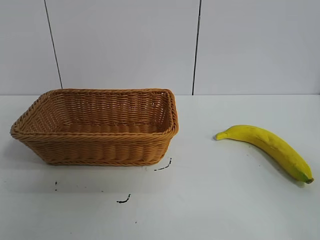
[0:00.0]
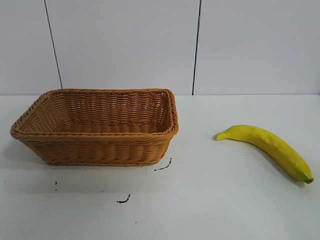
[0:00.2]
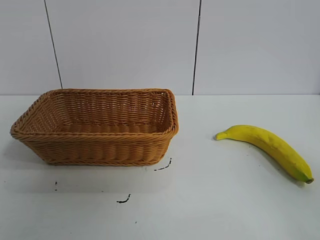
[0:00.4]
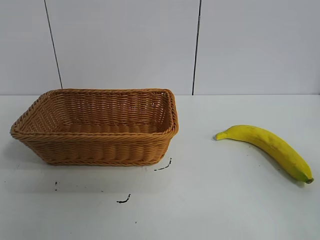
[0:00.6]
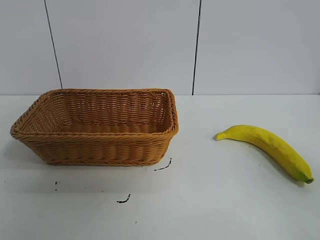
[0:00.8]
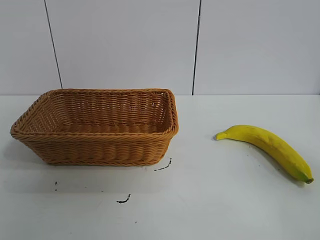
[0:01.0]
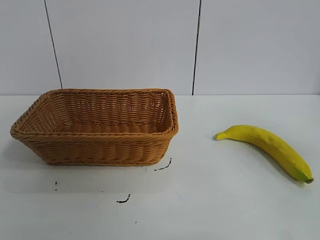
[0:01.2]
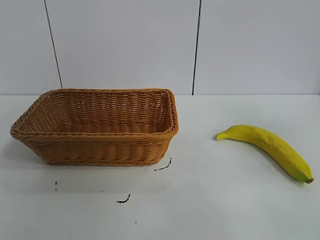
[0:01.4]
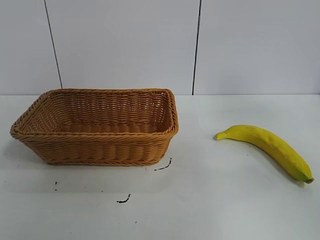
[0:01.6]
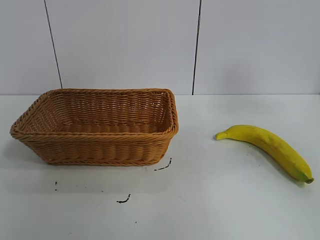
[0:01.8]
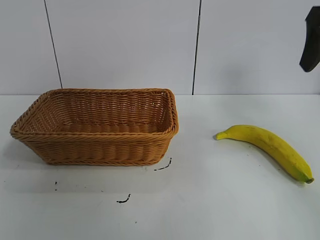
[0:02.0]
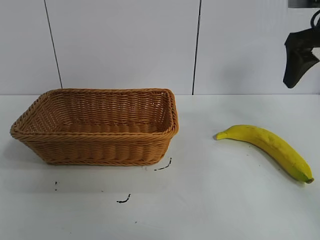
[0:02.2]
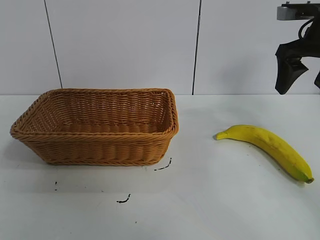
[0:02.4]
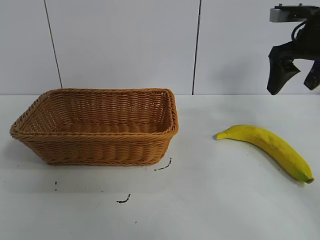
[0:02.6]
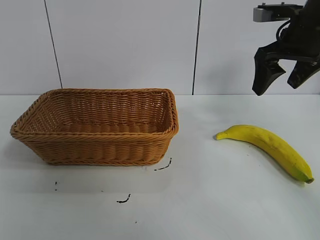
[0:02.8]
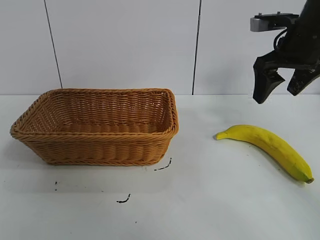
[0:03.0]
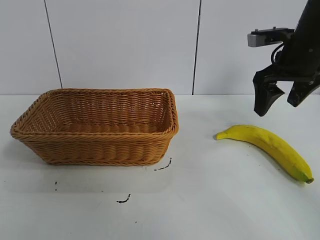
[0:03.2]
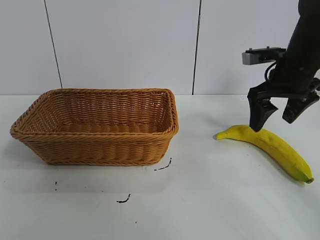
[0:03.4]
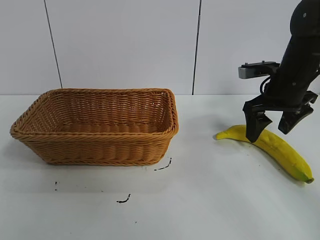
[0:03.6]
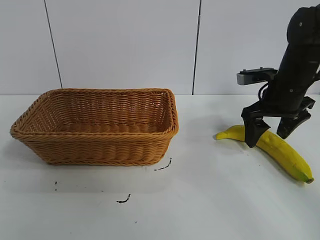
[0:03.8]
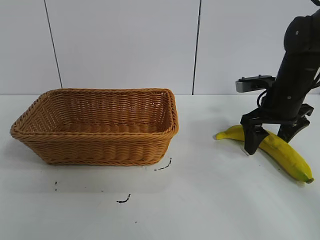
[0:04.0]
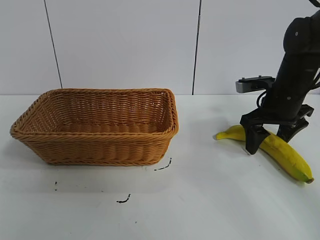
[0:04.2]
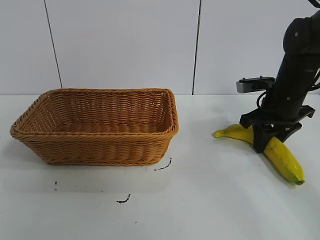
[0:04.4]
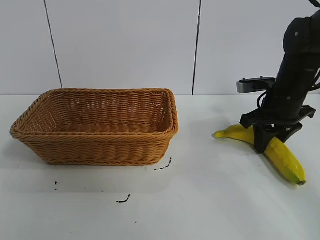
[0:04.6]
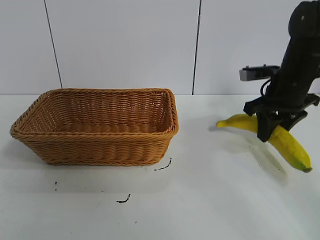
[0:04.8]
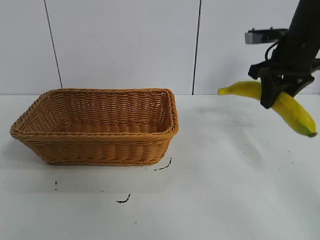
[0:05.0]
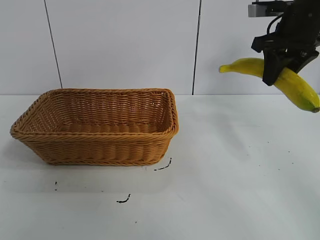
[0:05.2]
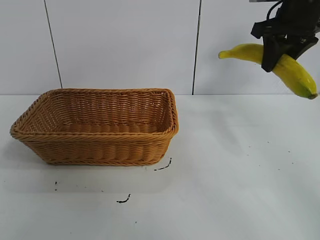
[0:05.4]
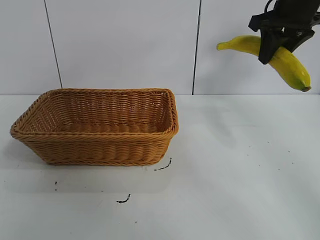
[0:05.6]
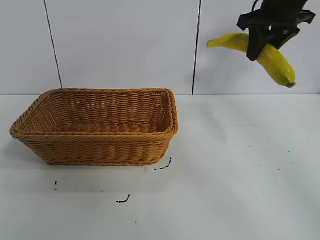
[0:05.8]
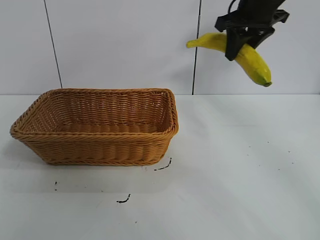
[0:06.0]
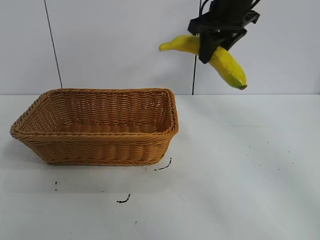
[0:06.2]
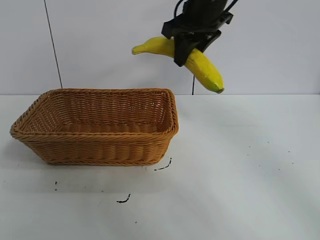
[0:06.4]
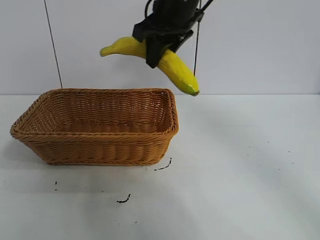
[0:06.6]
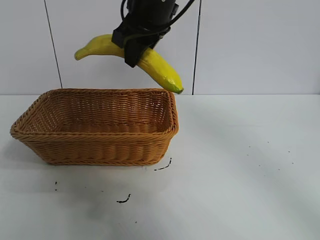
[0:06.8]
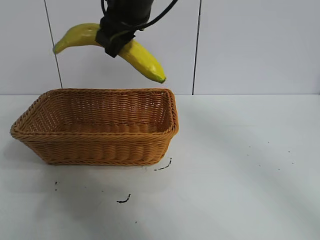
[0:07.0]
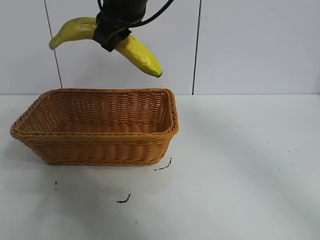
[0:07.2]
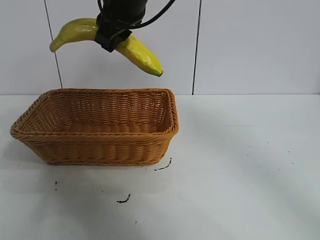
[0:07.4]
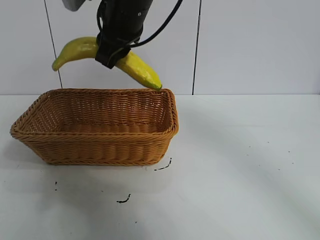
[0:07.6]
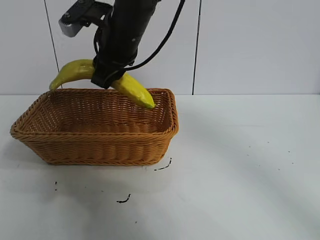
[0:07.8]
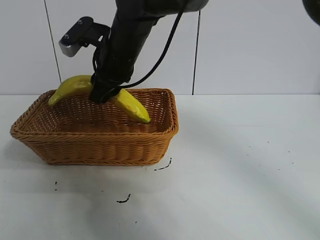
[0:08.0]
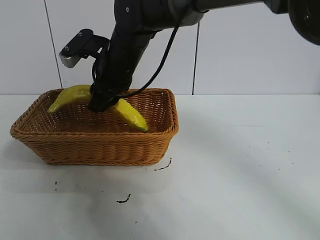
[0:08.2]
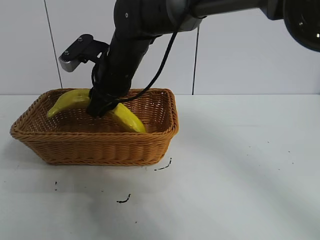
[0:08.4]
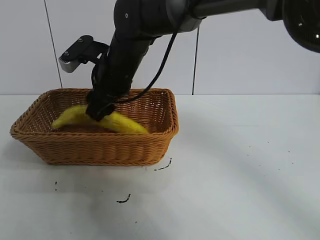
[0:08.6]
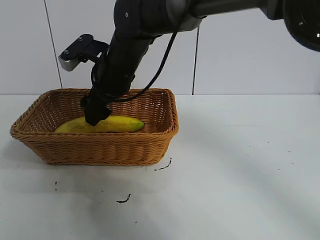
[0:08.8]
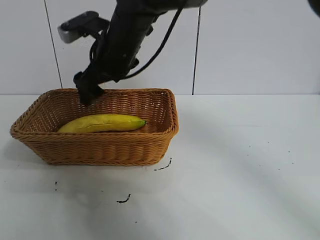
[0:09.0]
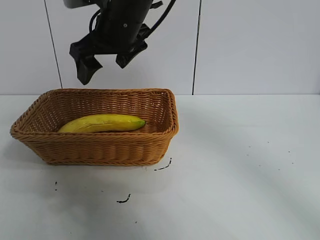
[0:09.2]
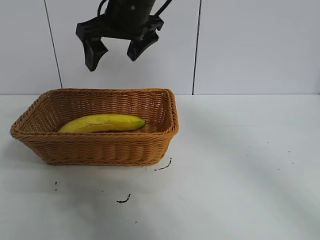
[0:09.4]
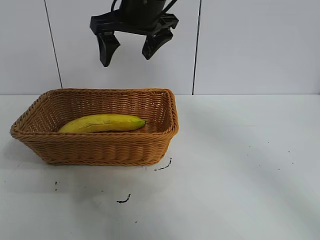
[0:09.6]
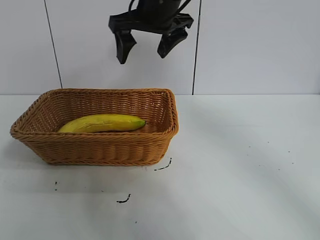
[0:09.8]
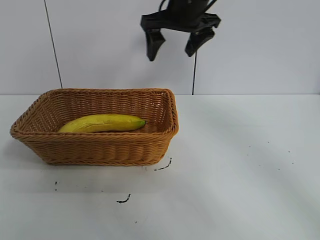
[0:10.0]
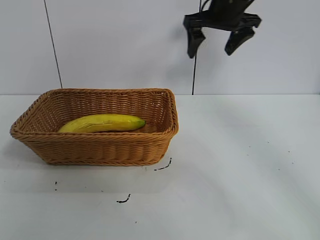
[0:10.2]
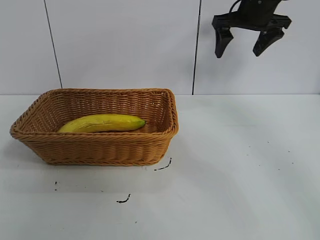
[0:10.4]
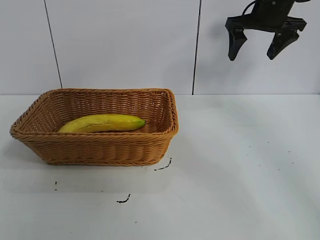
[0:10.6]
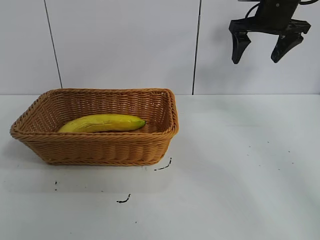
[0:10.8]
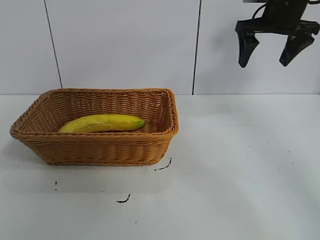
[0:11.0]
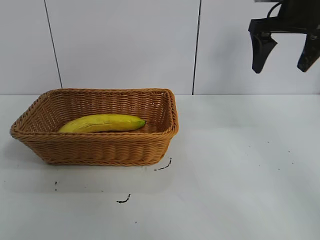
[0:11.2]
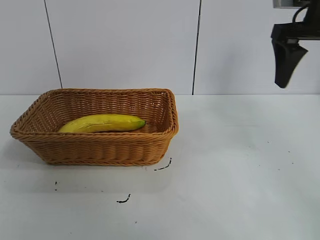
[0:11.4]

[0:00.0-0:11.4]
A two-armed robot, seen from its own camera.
Task of the whole recording: pick up the banana and put it into the basket.
Step, 0:00.8 to 0:04.4: Grasp the banana with right gripper.
Step, 0:04.6 to 0:08.8: Place the banana in the basket with right gripper.
